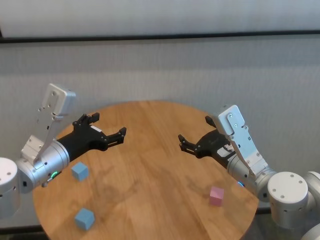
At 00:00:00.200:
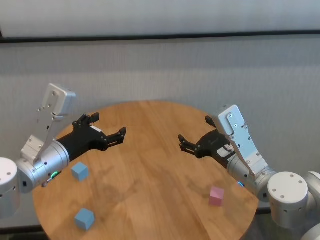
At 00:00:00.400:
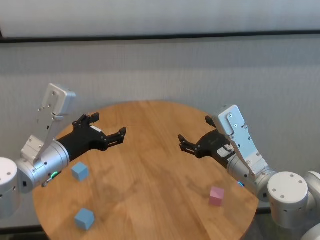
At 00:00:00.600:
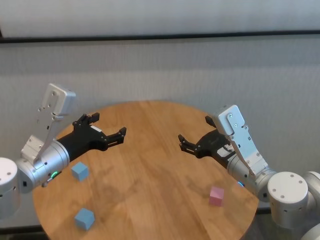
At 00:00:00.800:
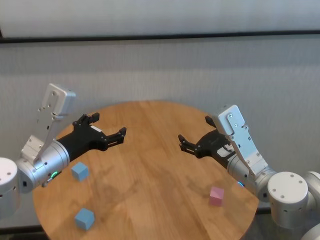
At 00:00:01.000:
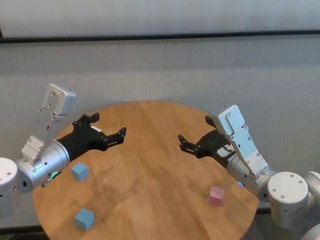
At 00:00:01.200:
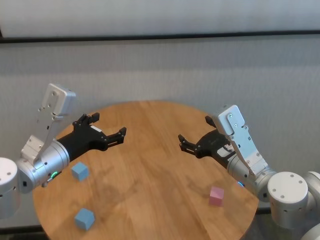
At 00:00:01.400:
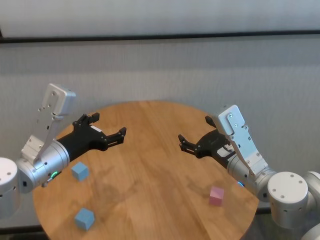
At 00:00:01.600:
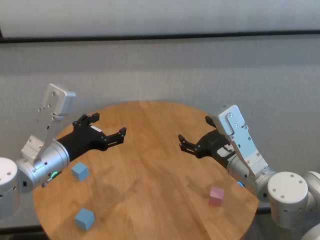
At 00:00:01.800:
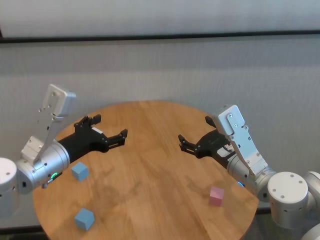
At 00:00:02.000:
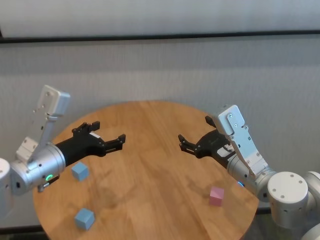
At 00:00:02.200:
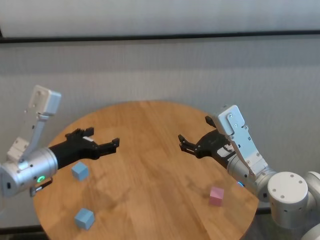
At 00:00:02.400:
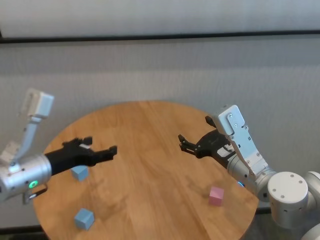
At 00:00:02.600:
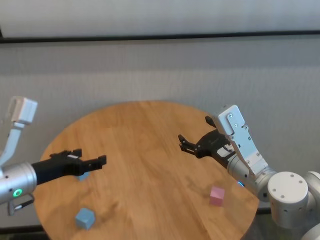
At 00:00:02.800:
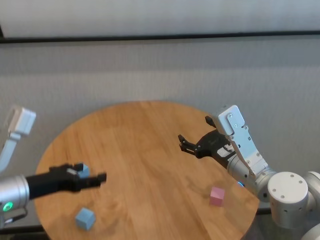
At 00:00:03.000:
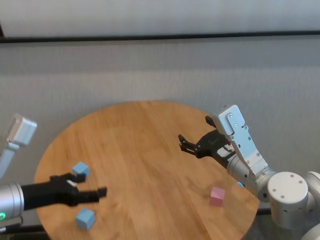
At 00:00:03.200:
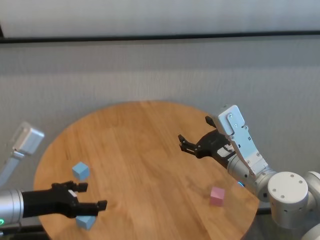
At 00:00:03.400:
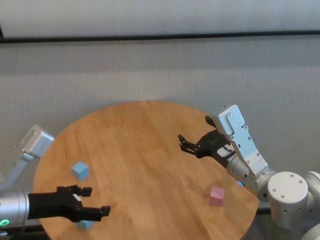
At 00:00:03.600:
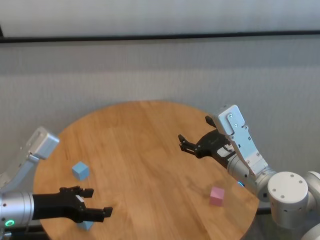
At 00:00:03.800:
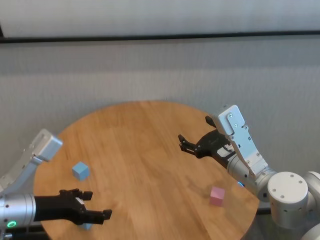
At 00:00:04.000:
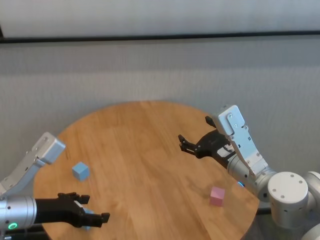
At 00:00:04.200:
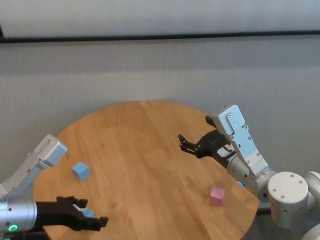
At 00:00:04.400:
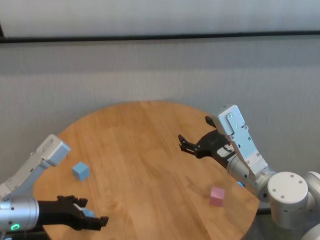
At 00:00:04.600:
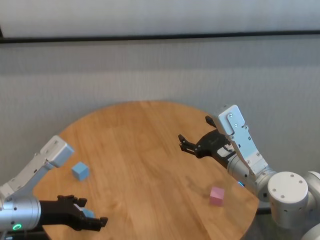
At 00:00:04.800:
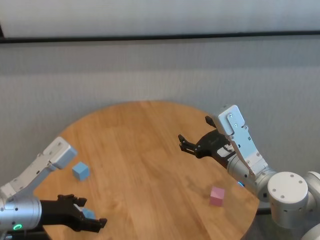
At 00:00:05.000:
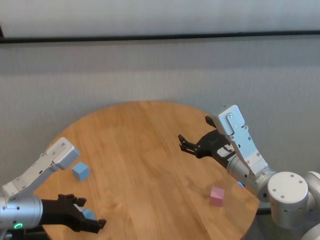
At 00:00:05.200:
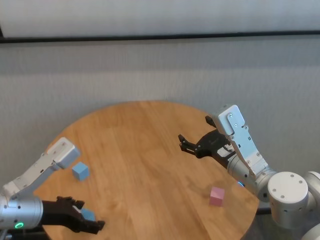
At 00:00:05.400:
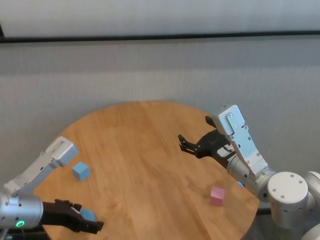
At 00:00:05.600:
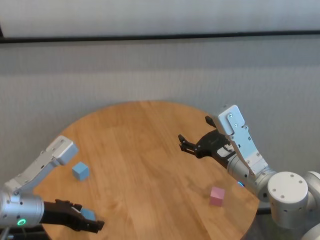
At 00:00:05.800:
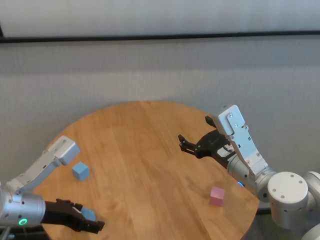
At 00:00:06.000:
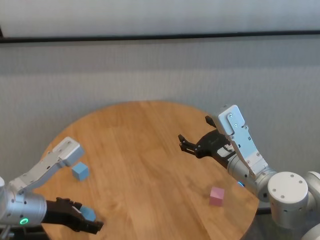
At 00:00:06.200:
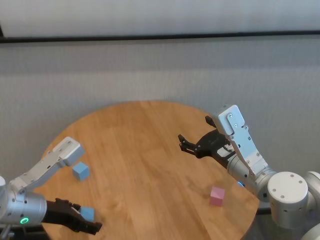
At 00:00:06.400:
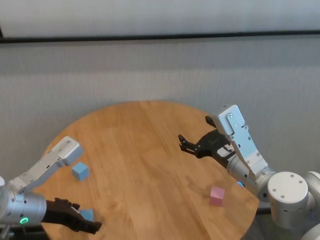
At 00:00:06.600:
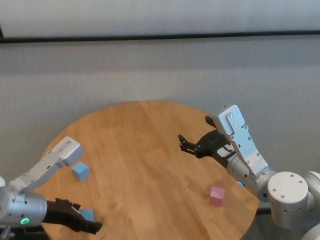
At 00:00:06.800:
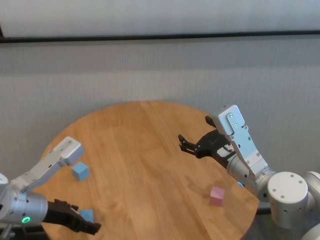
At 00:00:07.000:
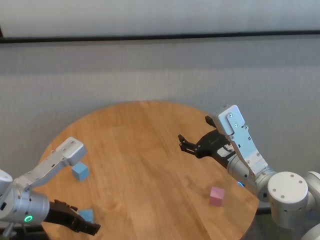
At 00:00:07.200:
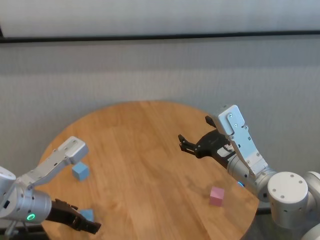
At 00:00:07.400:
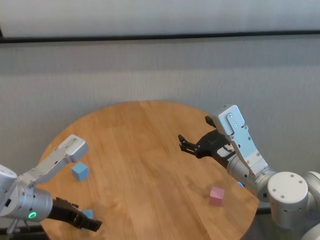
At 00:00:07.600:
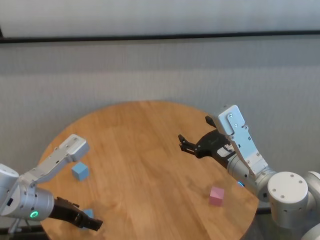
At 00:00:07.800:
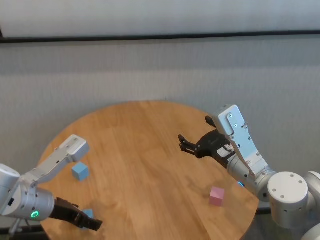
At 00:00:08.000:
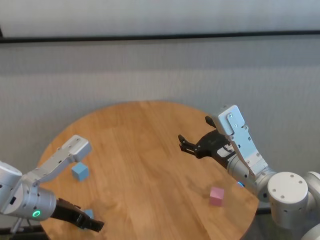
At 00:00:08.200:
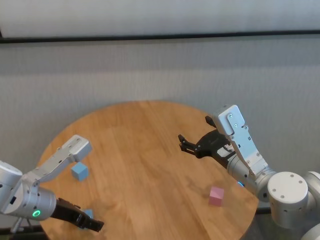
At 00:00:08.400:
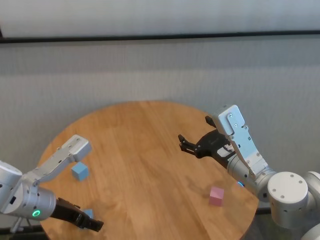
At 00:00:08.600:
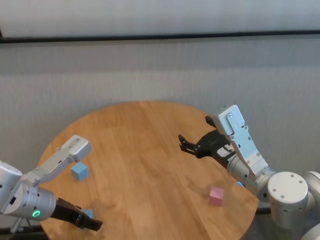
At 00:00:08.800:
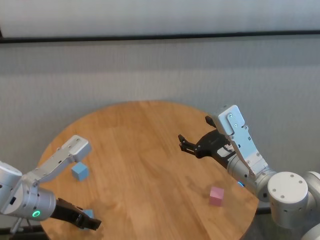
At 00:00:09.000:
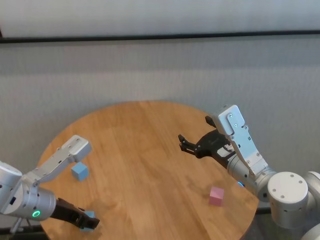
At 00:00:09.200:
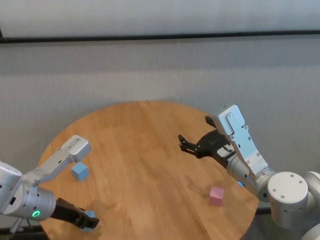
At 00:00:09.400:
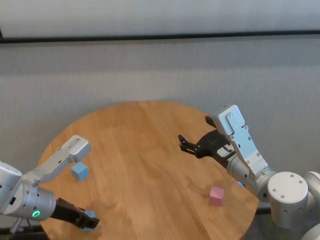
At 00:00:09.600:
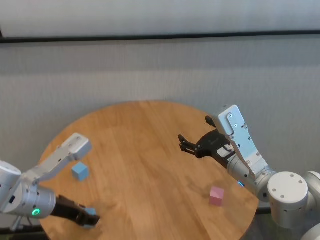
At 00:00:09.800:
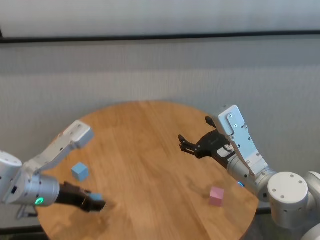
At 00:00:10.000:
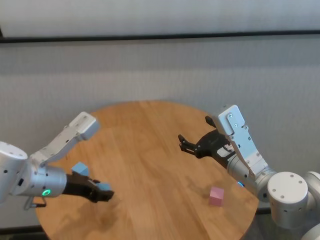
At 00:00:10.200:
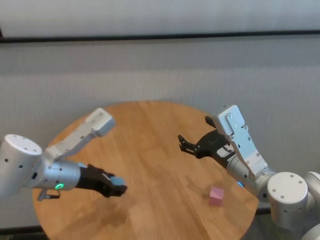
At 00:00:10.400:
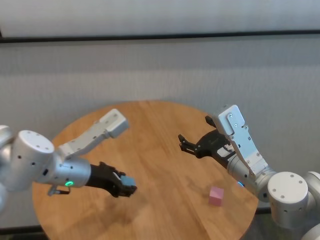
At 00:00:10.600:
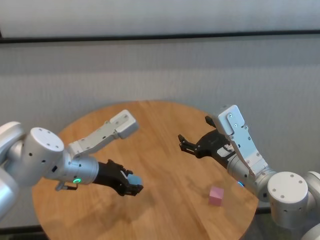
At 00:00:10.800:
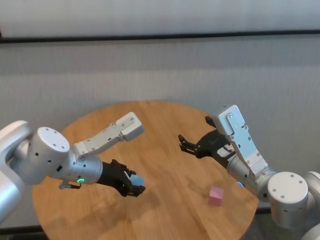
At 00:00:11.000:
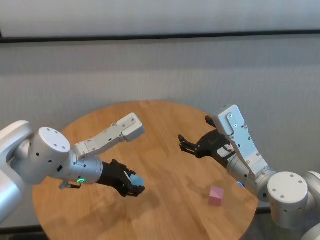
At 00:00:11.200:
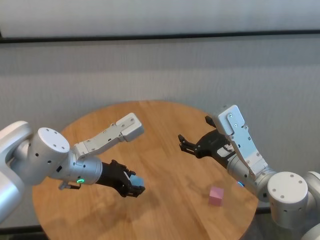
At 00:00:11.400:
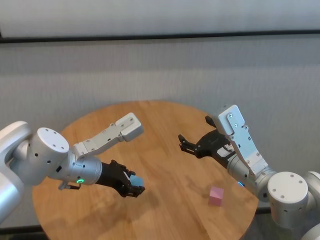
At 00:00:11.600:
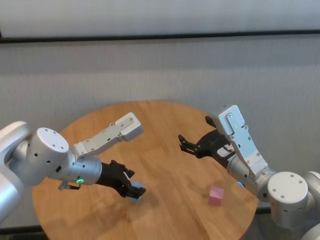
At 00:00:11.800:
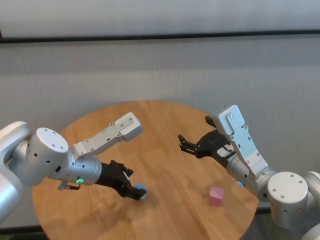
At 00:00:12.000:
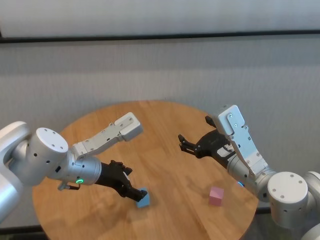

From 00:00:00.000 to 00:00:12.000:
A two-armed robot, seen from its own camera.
Task of the whole recording: stack building blocks on the table.
Step, from 00:00:00.000 to 00:00:09.200: Grasp the blue building block with left gripper.

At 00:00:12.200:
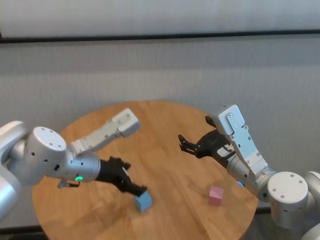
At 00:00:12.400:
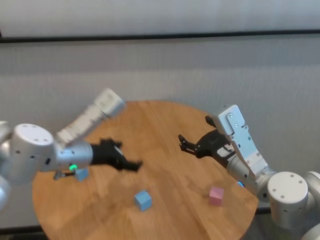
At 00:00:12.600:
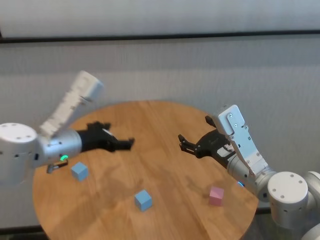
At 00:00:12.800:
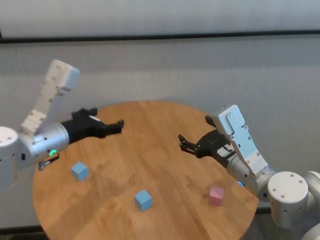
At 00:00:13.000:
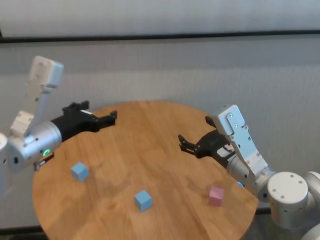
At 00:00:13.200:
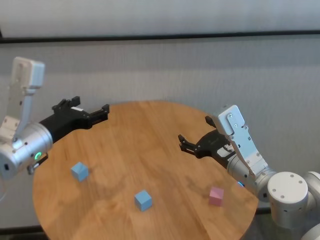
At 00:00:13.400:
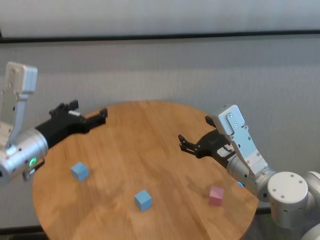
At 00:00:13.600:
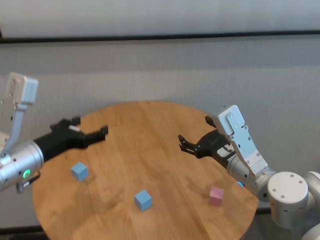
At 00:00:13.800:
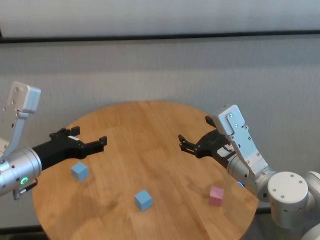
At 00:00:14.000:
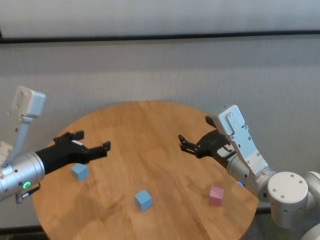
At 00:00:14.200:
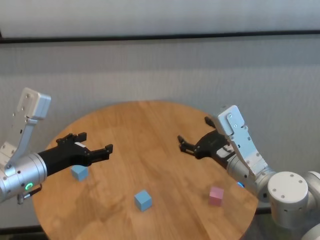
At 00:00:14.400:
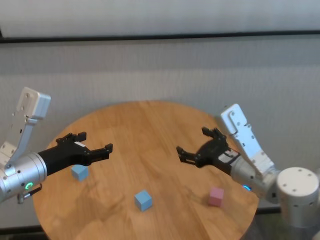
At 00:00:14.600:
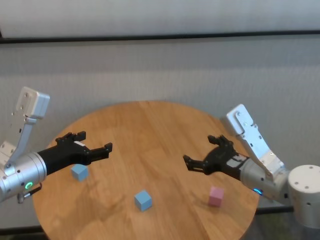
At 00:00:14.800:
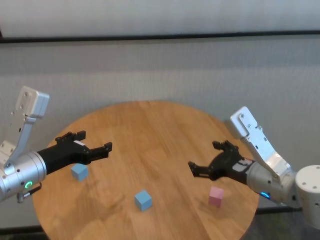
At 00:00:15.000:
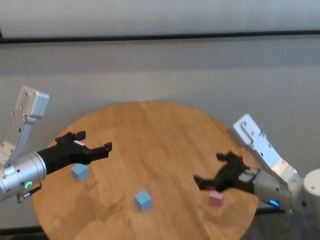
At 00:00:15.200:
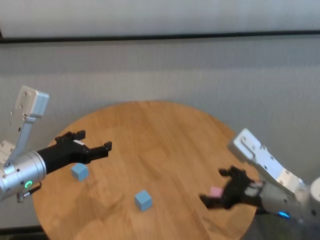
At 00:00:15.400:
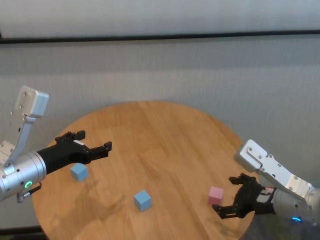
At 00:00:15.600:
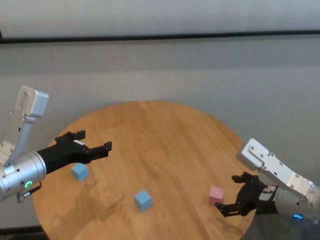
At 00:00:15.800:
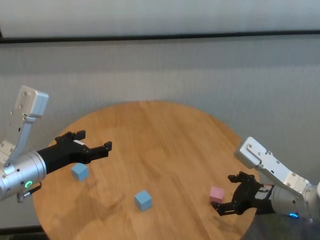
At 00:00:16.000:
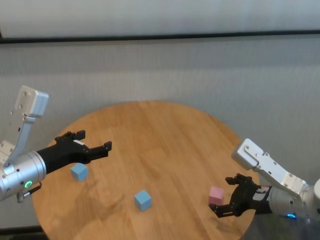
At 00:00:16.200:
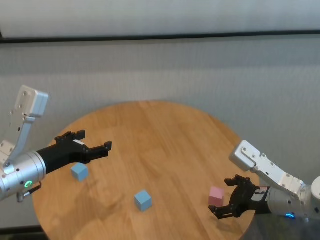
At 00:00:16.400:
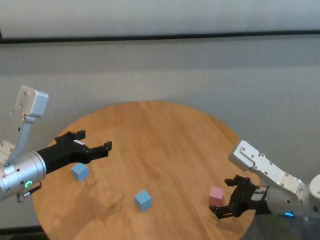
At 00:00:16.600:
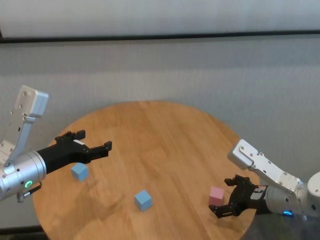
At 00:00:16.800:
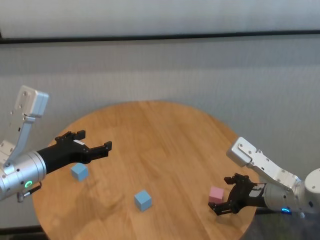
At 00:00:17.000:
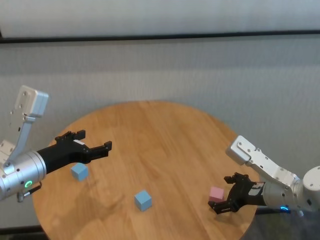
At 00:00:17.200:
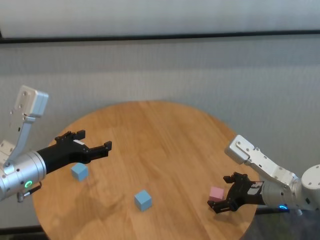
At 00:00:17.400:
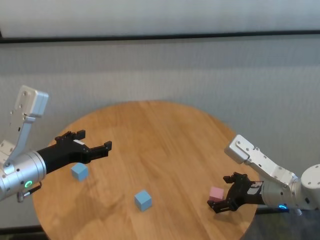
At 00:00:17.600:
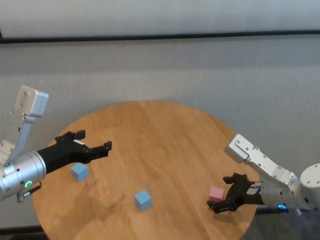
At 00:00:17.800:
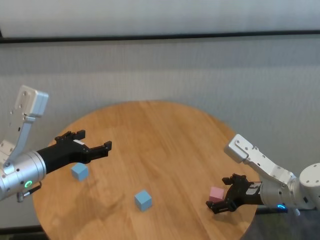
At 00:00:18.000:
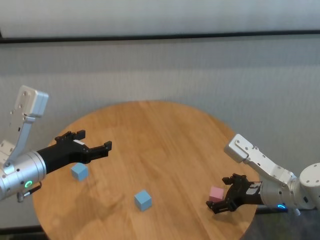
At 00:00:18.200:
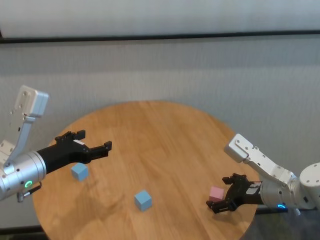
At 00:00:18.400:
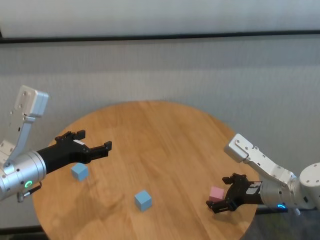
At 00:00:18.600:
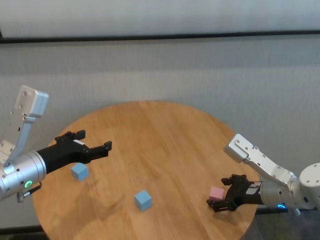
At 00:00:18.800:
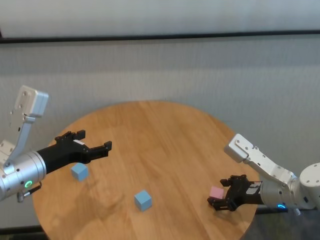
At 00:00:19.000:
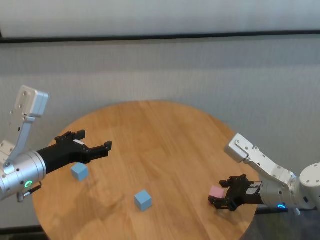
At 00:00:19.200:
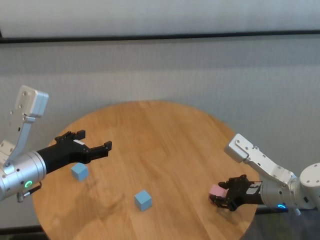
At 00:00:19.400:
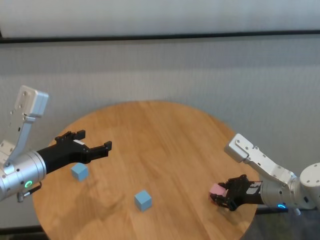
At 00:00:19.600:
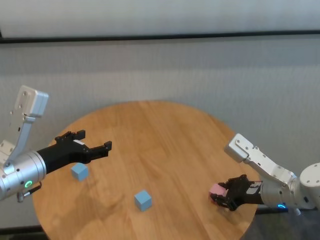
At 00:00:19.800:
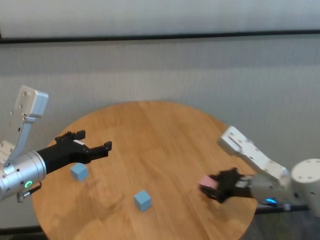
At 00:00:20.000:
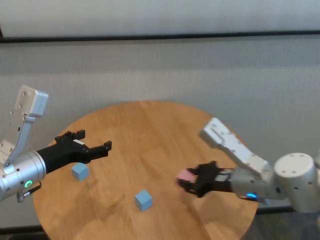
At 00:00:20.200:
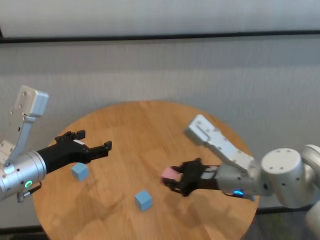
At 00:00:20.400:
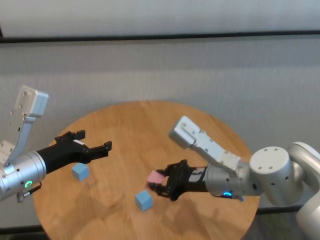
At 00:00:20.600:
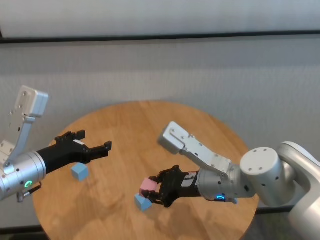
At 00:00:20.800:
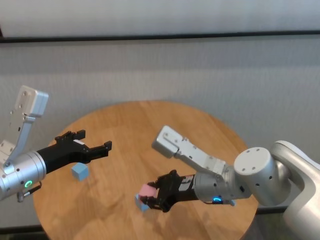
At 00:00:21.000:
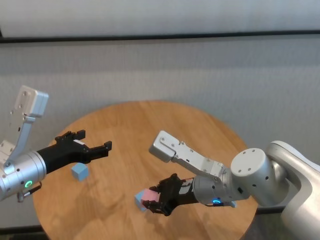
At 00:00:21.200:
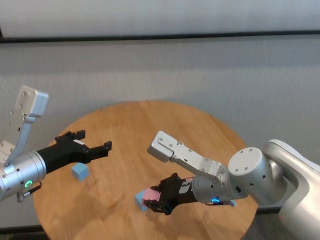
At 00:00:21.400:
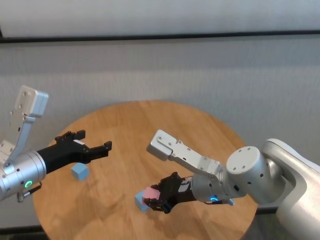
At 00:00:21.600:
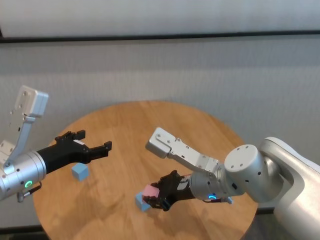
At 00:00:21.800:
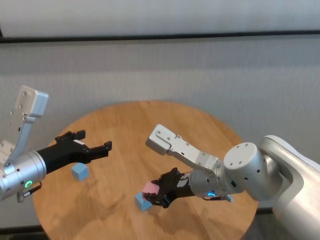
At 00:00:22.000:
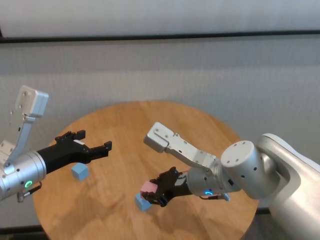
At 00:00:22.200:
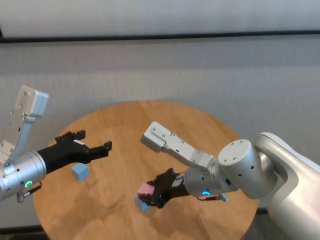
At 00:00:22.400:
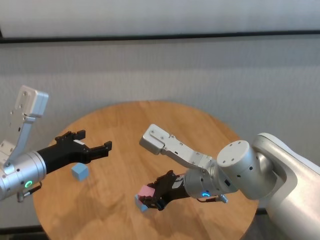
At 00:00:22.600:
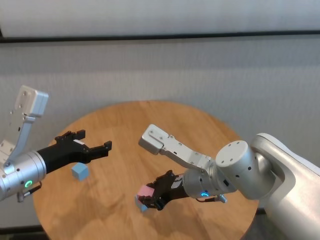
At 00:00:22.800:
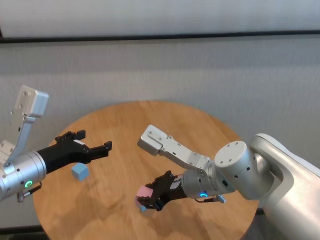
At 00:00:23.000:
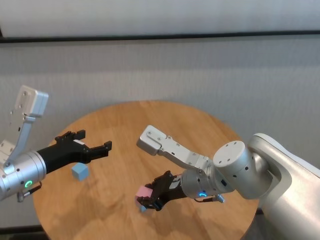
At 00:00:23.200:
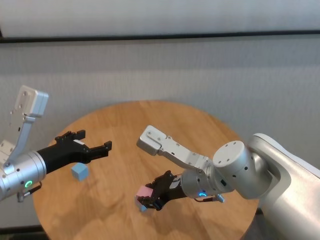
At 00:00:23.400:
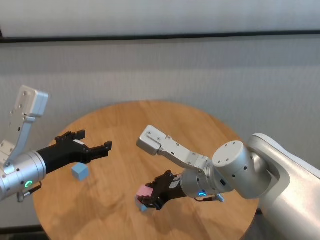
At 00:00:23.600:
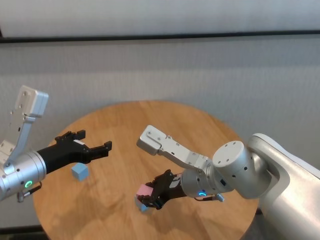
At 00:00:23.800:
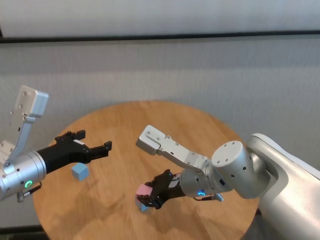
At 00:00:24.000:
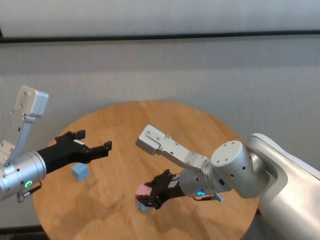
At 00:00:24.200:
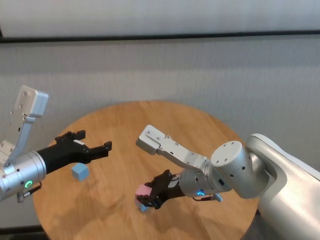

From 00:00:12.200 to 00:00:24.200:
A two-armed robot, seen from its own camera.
Task of the whole recording: stack building blocks on the table.
Step, from 00:00:12.400 to 00:00:19.400: Grasp the pink building block with right gripper.
